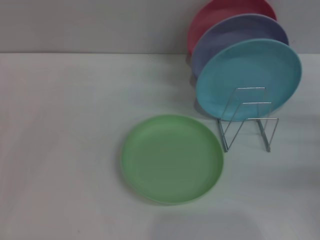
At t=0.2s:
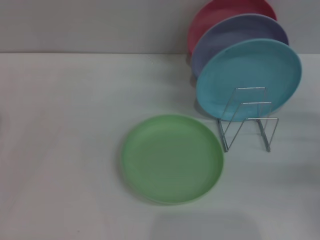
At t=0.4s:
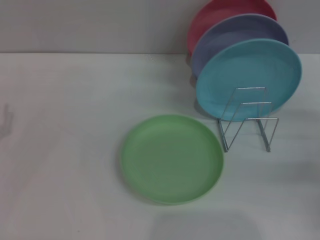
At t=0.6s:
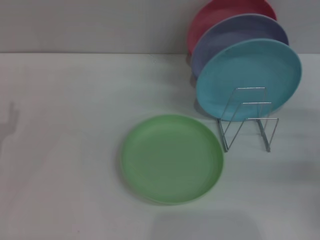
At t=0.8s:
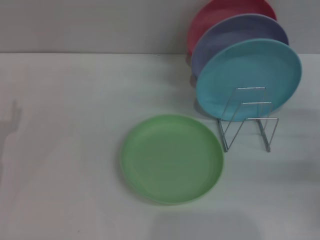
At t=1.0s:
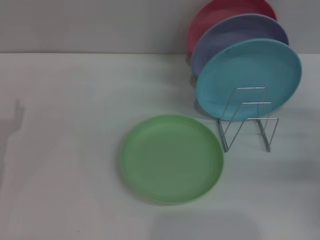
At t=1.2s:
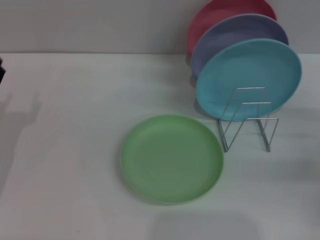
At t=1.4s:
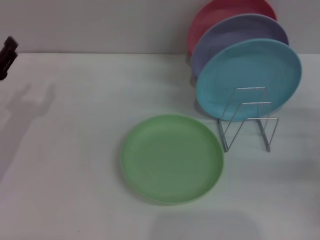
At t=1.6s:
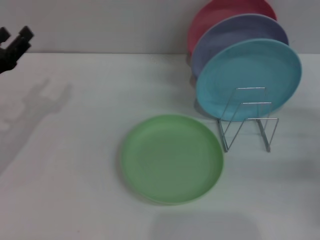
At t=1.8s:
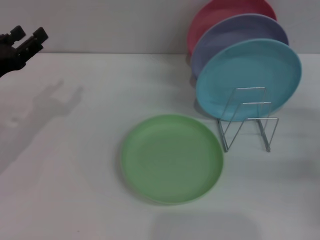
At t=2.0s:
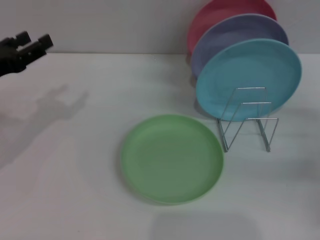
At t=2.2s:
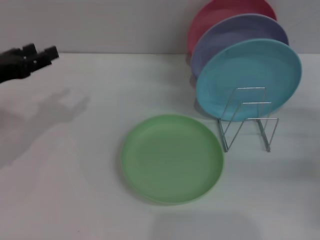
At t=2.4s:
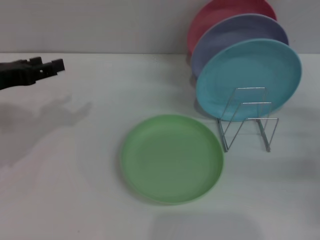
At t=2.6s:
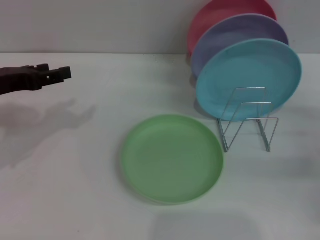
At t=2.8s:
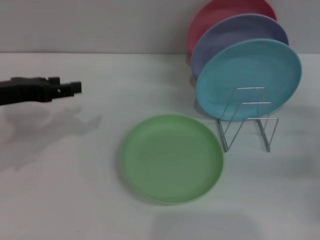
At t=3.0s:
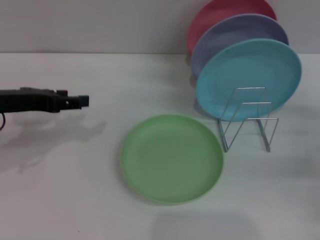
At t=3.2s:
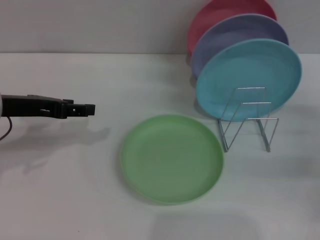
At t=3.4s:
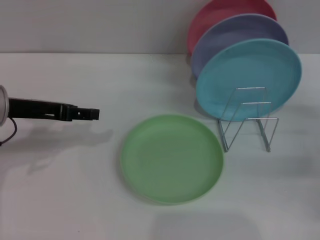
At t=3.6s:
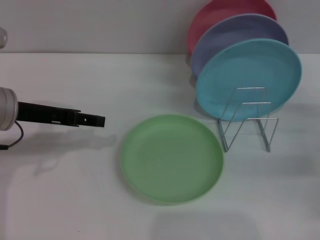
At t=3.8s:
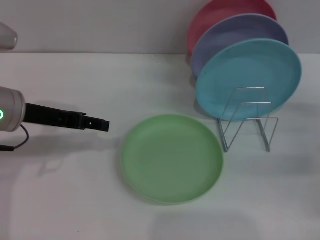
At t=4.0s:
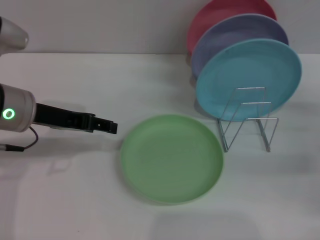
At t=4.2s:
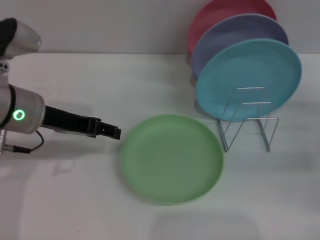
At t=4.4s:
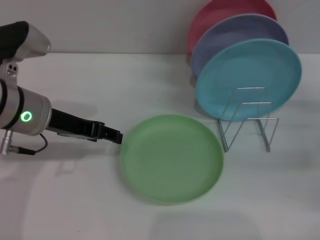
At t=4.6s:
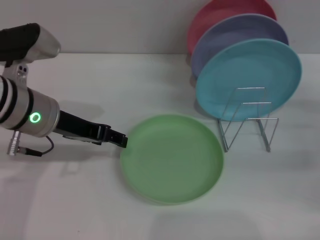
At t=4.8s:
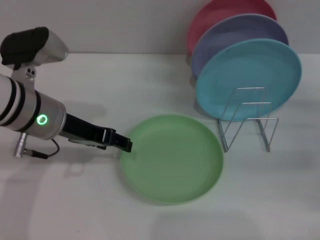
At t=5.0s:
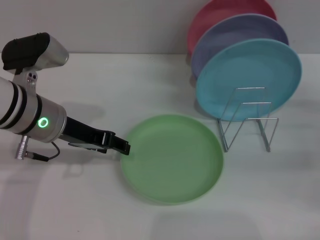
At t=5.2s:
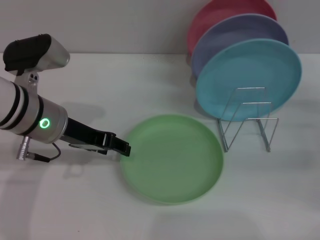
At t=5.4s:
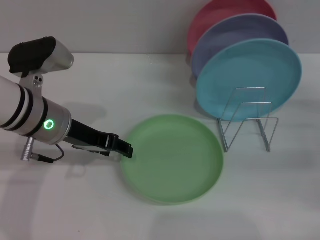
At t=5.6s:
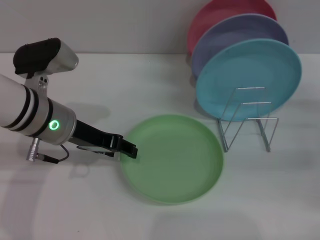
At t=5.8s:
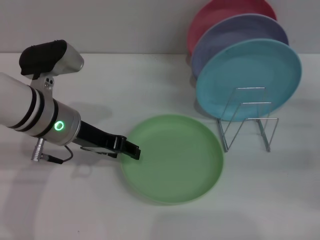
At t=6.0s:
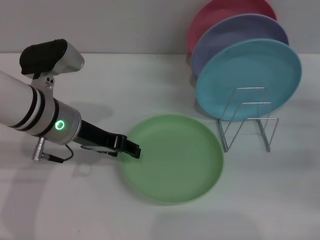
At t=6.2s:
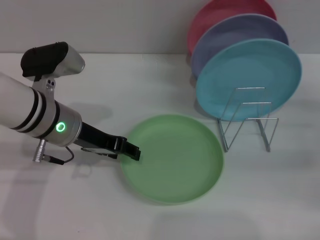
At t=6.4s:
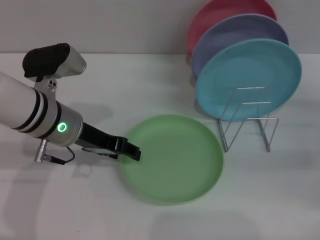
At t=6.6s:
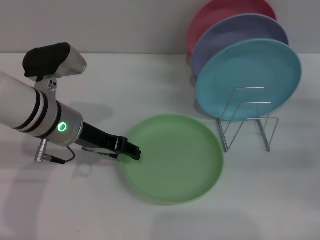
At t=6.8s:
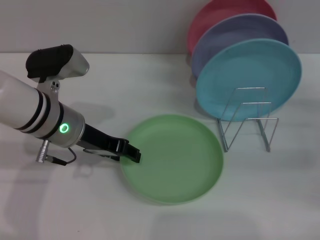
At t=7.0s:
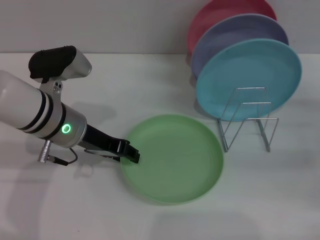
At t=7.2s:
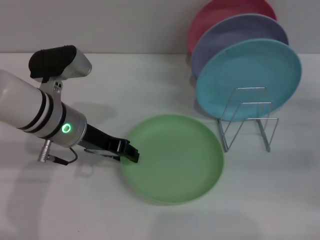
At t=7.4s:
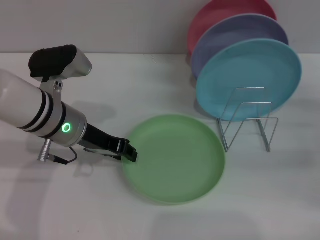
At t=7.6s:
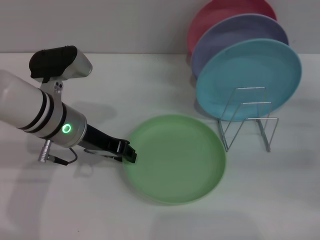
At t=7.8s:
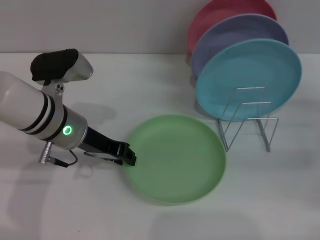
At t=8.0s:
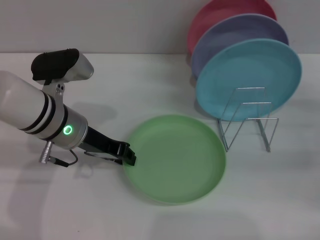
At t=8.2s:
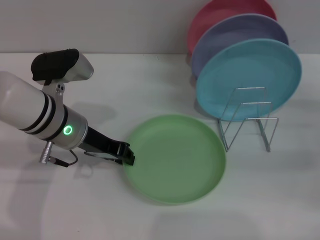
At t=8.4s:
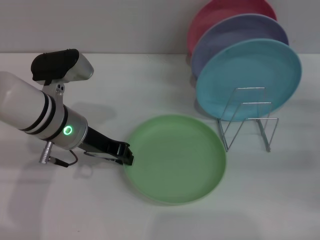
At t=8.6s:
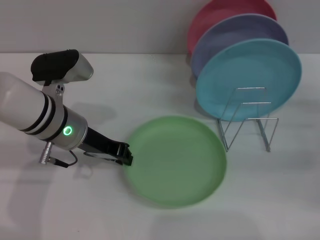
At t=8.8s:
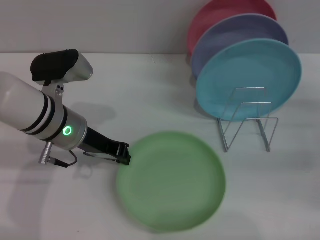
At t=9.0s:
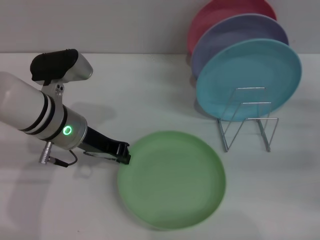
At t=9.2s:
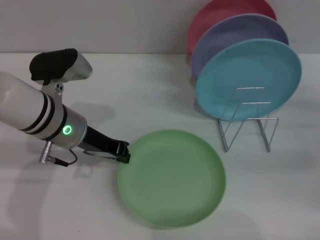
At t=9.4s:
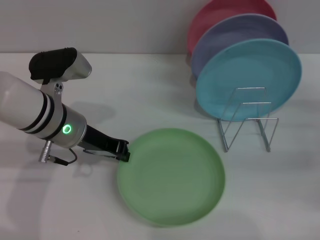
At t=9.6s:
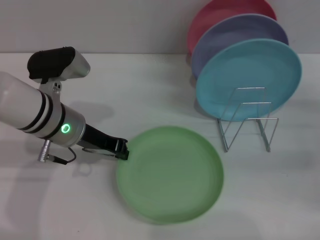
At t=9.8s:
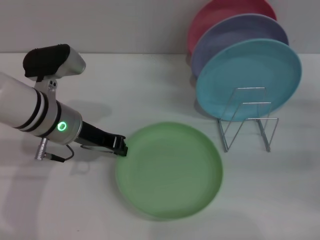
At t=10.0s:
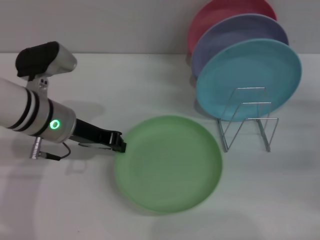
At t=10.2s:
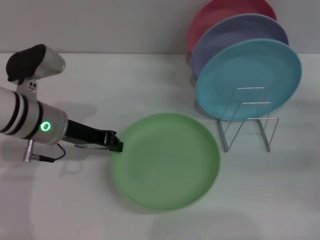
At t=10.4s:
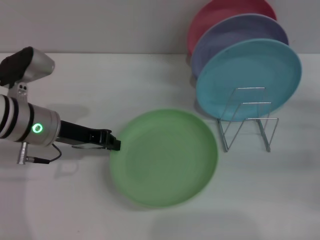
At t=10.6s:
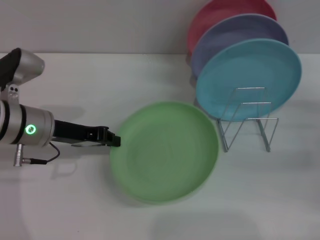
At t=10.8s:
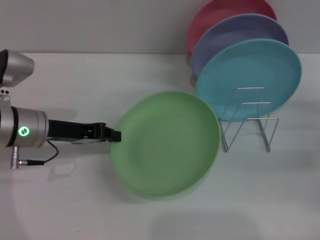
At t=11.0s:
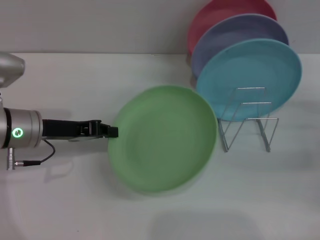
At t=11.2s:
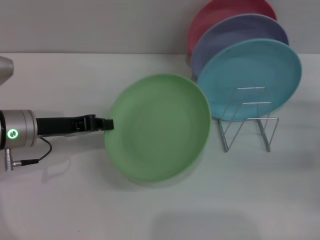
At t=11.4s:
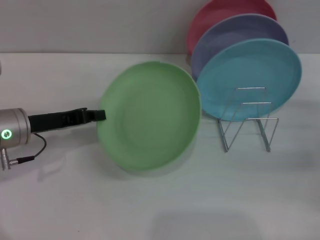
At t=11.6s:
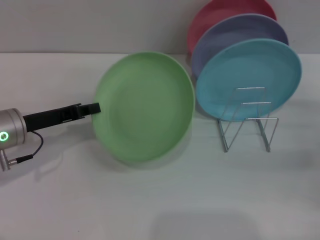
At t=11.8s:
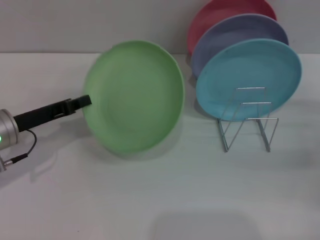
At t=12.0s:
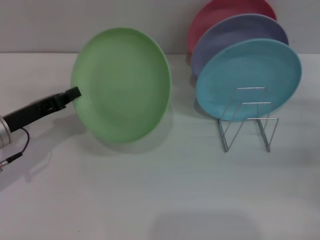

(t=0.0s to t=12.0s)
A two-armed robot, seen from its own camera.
Task of the whole recording: Grip the plate with one hand, pass it to the other, then set it on the shelf.
Step, t=0.0s - t=11.0s: Pick up the plate with the left gripper.
t=0.0s - t=1.6s: The left gripper shifts about 10 cm forward and upward.
t=1.6s - t=3.0s: The left gripper goes about 5 cm upward.
t=3.0s - t=4.4s: The left gripper goes about 5 cm to the right.
t=4.4s - t=6.0s: There are only small adjustments of the grippers.
t=6.0s - t=7.6s: The left gripper closes.
t=7.6s - t=9.0s: The left gripper closes up.
t=9.0s - t=10.4s: There are only small adjustments of the grippers.
t=10.4s - t=12.0s: The left gripper moves to the left, about 5 cm.

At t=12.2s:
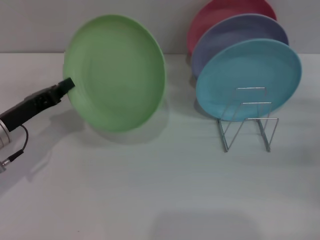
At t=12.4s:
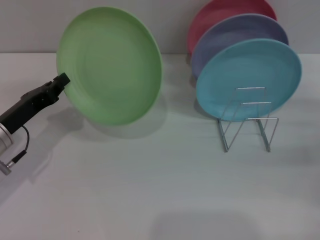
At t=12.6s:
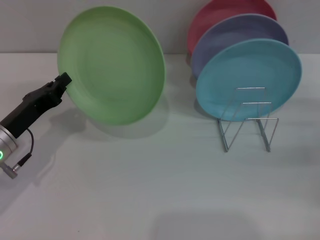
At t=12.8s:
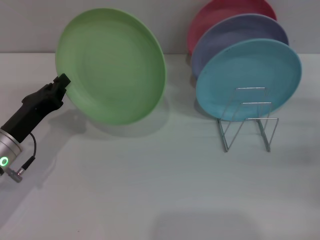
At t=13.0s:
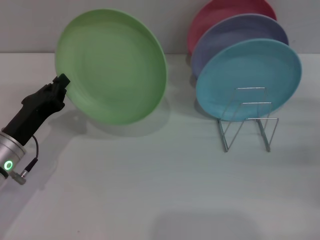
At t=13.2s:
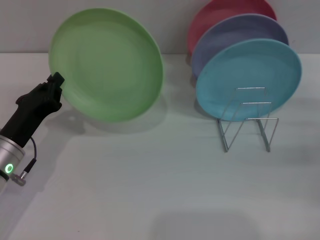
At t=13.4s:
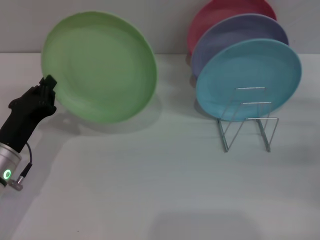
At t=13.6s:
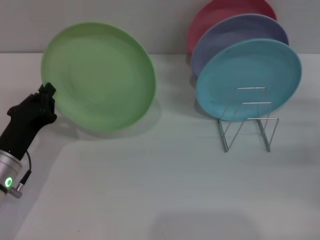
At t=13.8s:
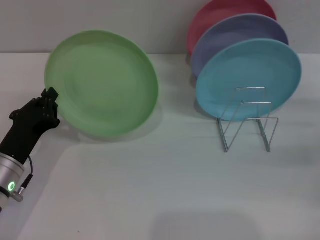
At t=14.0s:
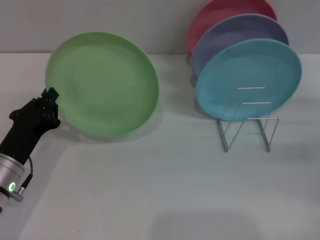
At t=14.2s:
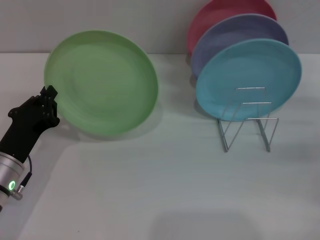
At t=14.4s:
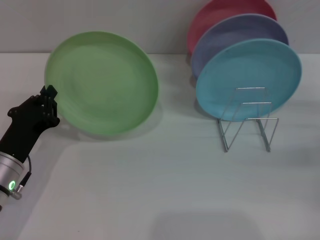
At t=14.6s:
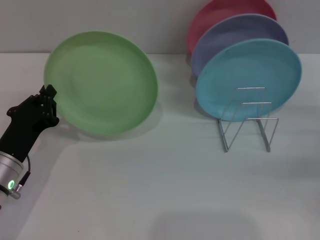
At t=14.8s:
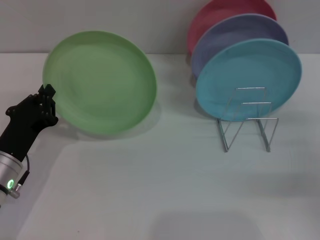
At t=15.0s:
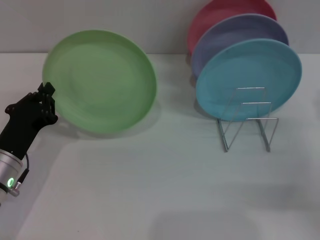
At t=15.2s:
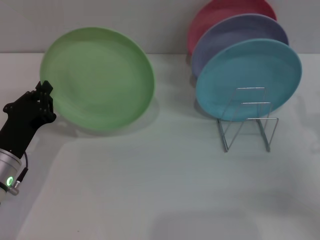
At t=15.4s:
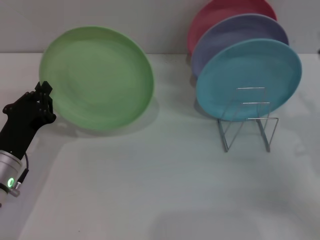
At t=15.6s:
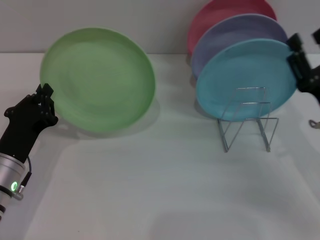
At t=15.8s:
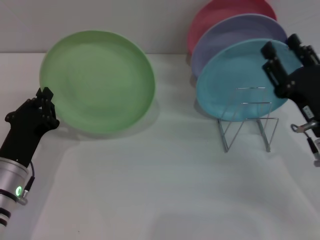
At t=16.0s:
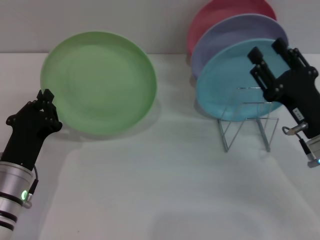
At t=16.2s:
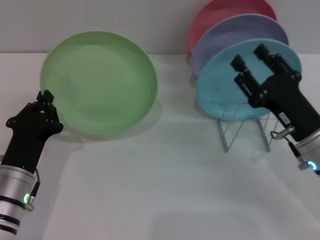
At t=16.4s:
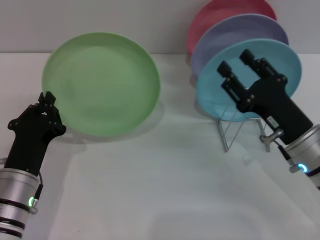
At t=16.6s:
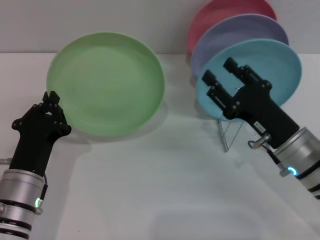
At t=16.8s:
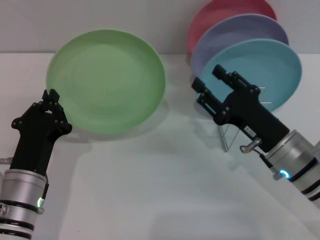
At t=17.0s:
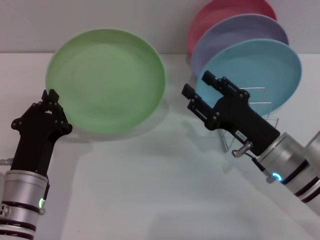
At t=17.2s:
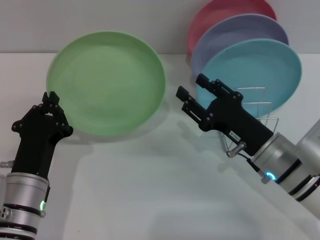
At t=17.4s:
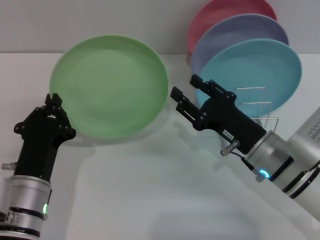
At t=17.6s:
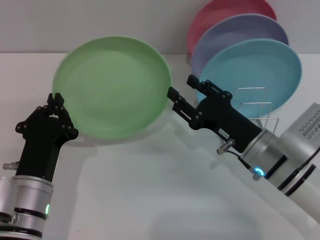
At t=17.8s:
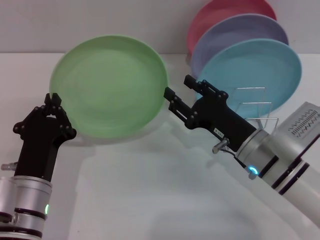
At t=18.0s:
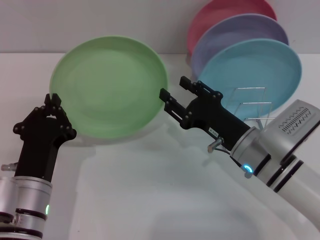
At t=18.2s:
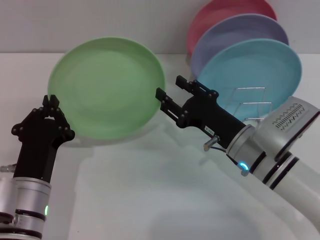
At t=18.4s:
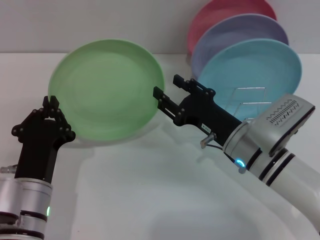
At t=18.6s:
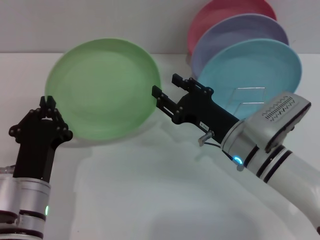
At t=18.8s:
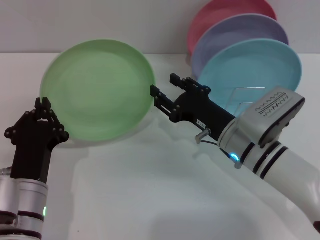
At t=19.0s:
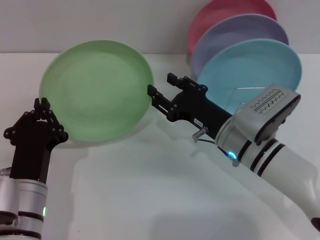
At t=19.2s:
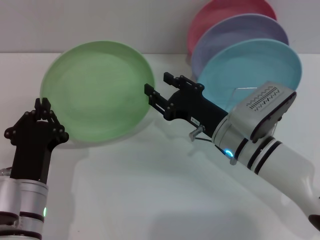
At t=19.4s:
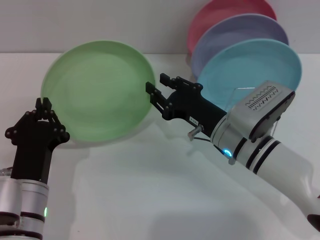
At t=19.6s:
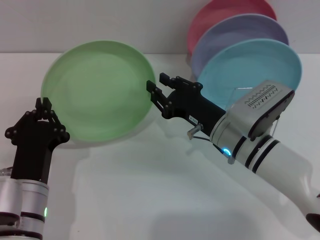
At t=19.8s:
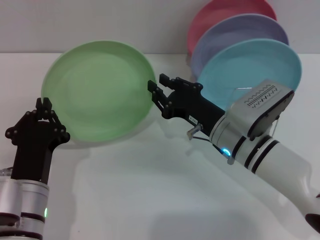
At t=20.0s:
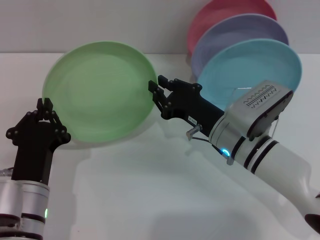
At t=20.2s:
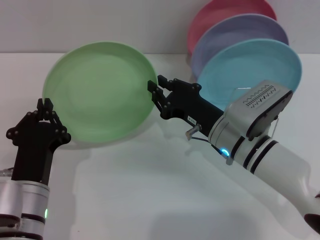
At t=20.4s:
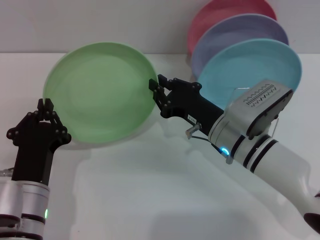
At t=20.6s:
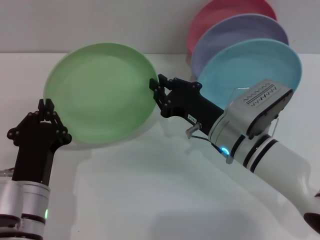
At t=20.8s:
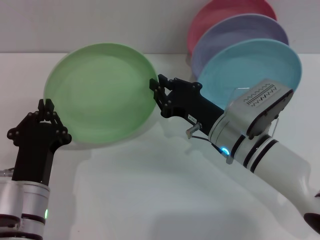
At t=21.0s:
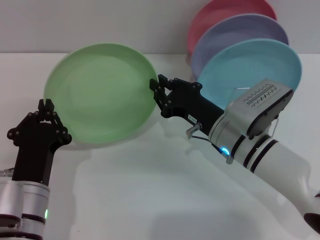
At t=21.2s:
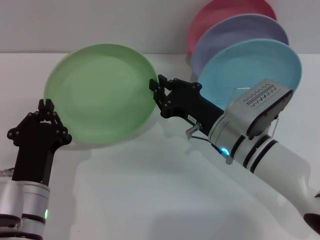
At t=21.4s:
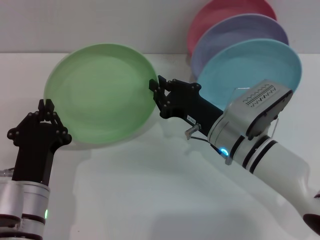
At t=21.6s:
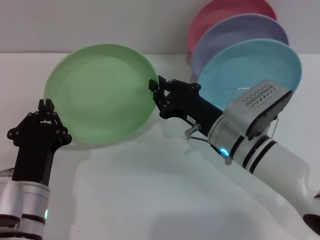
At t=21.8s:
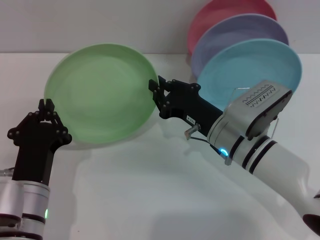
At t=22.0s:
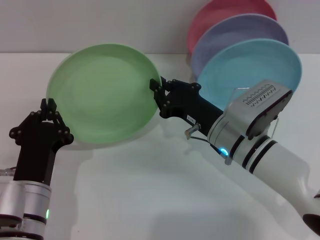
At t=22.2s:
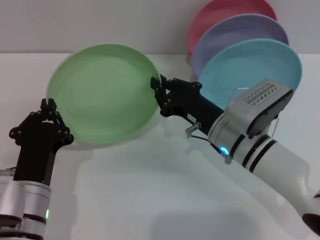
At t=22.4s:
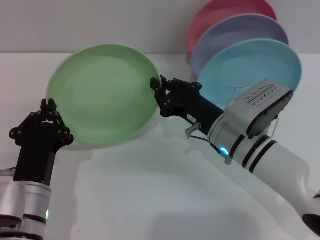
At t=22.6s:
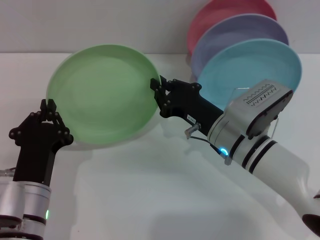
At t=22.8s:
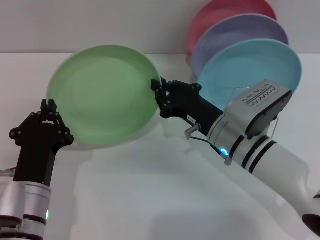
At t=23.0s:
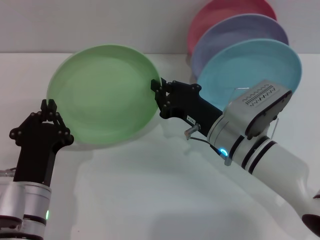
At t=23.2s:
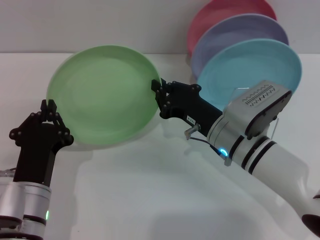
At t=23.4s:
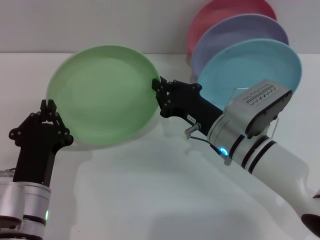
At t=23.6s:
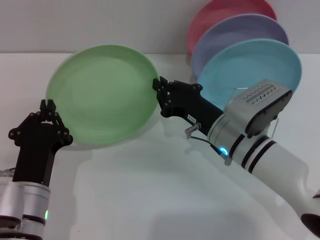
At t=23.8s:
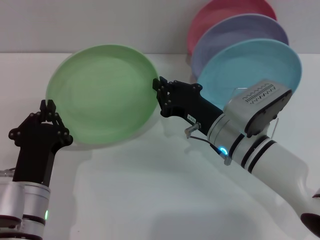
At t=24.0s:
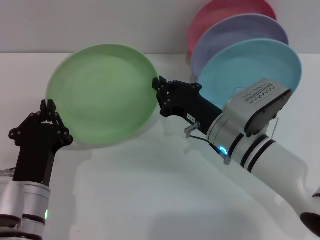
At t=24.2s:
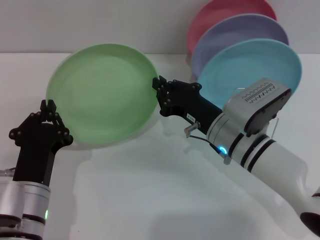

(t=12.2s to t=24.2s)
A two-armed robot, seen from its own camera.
Task of the whole recording: Grip the plate with one hand, pass it to the other, then set it on the shelf.
t=12.2s - t=13.8s: The left gripper moves backward, about 5 cm.
t=13.8s - t=15.2s: The right gripper moves to the left and backward, some 10 cm.
t=15.2s - t=16.6s: The right gripper shifts roughly 10 cm to the left. The left gripper shifts by about 5 cm.
t=16.6s - t=18.2s: The right gripper travels to the left by some 5 cm.
t=18.2s - t=19.8s: The right gripper closes up.
t=19.8s - t=24.2s: Neither gripper changes place.
